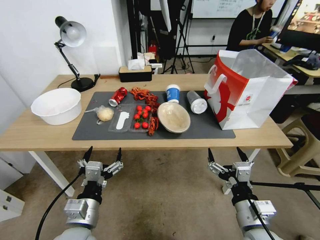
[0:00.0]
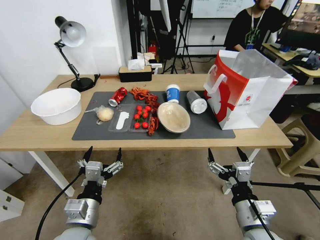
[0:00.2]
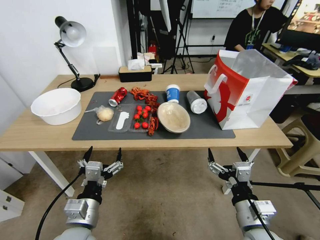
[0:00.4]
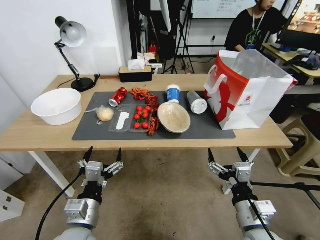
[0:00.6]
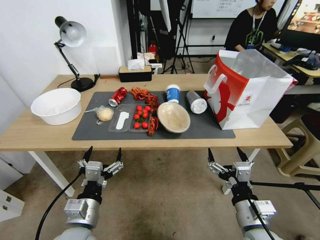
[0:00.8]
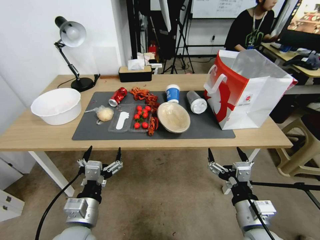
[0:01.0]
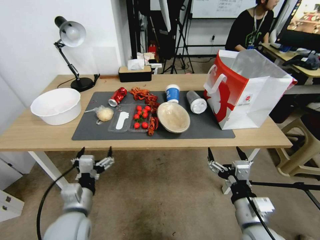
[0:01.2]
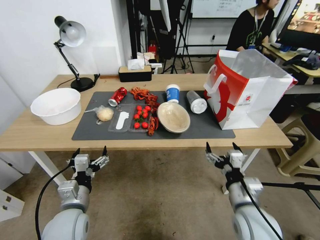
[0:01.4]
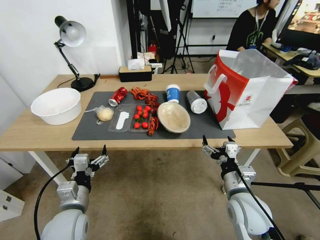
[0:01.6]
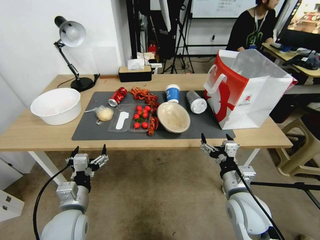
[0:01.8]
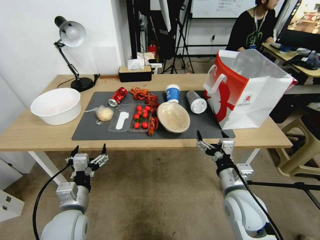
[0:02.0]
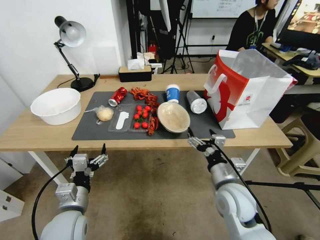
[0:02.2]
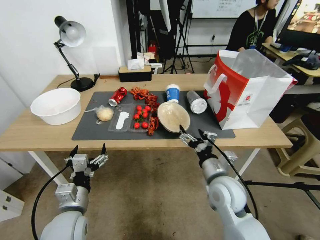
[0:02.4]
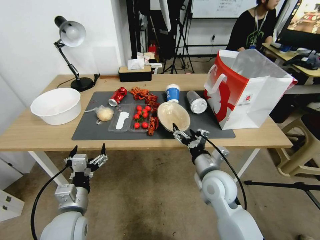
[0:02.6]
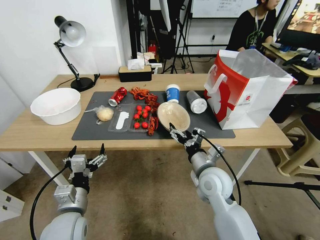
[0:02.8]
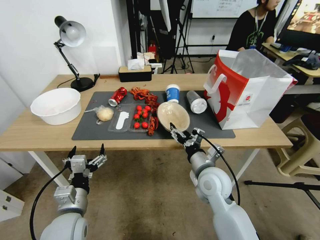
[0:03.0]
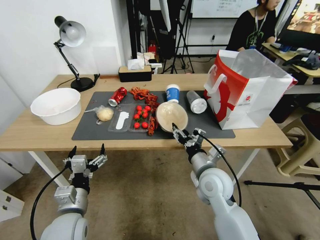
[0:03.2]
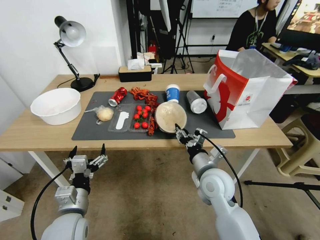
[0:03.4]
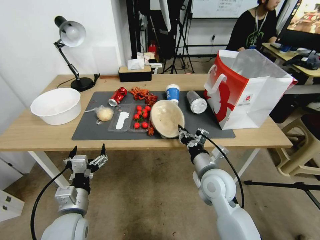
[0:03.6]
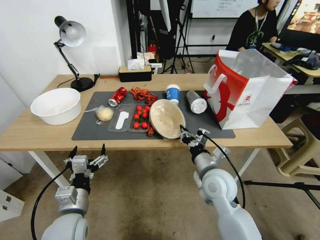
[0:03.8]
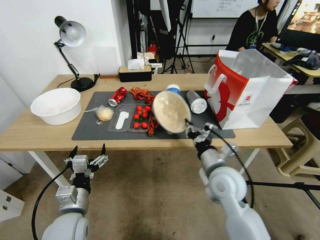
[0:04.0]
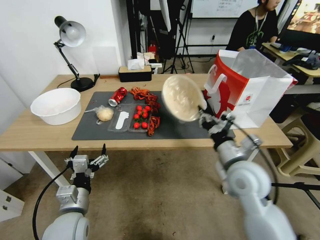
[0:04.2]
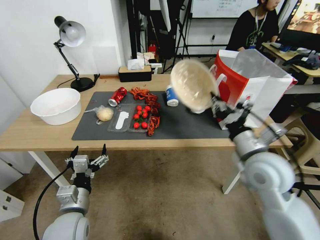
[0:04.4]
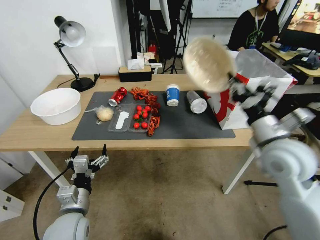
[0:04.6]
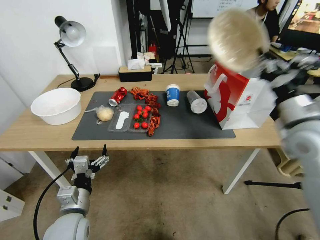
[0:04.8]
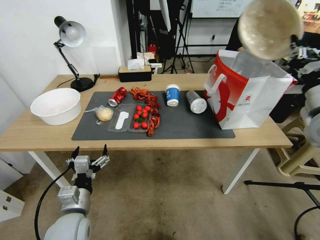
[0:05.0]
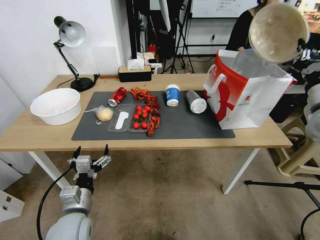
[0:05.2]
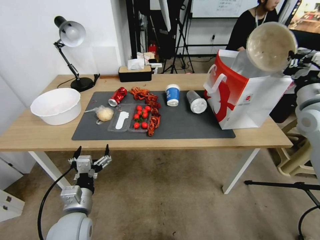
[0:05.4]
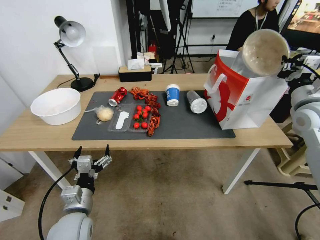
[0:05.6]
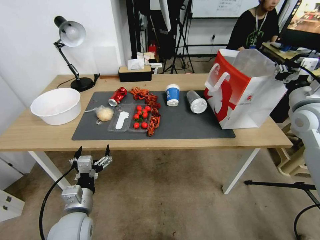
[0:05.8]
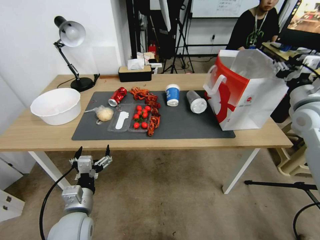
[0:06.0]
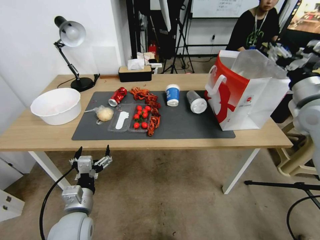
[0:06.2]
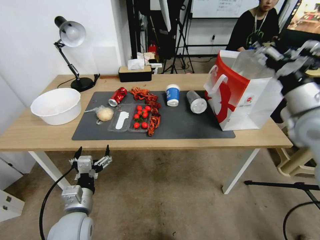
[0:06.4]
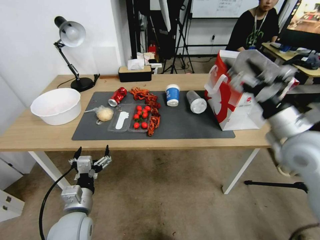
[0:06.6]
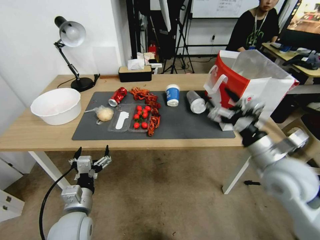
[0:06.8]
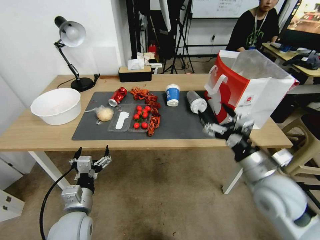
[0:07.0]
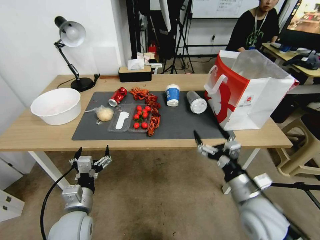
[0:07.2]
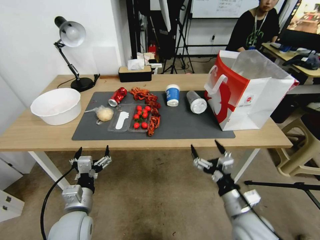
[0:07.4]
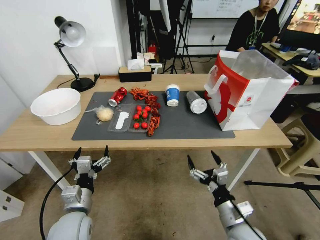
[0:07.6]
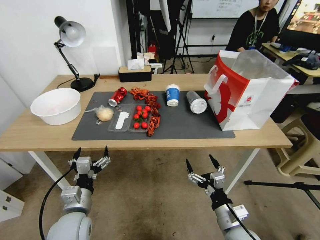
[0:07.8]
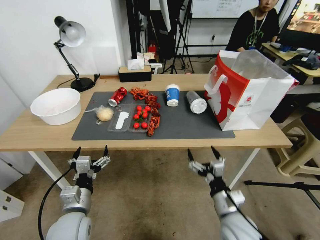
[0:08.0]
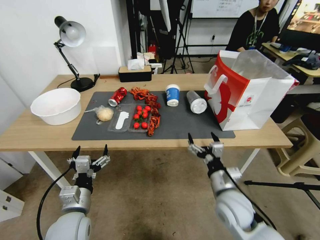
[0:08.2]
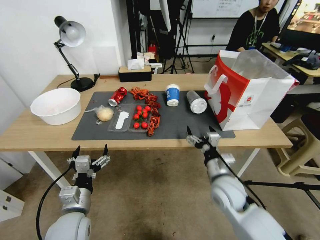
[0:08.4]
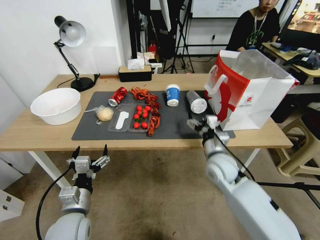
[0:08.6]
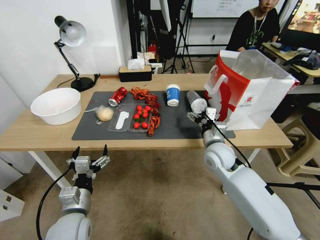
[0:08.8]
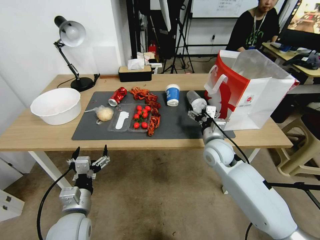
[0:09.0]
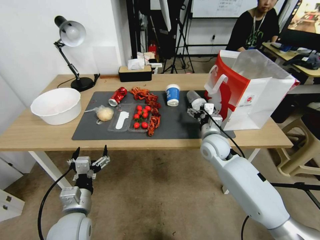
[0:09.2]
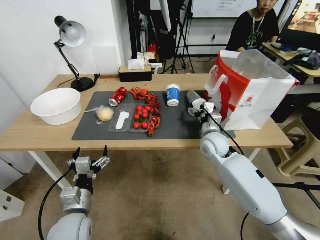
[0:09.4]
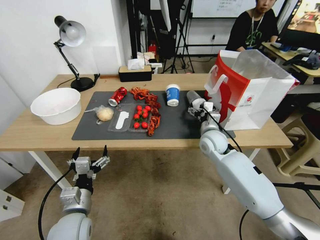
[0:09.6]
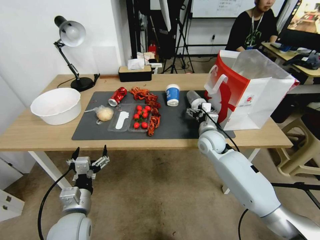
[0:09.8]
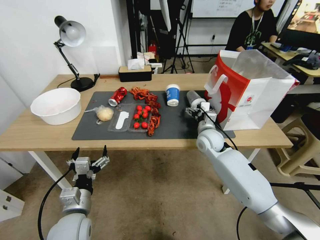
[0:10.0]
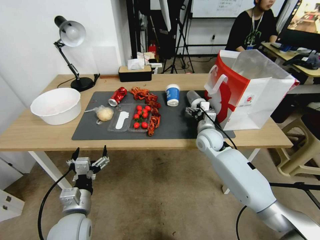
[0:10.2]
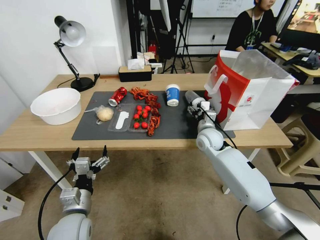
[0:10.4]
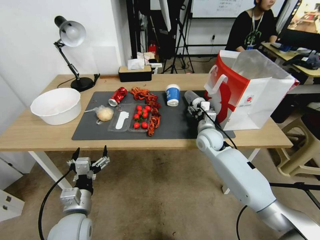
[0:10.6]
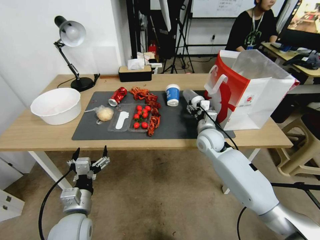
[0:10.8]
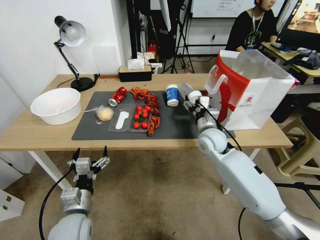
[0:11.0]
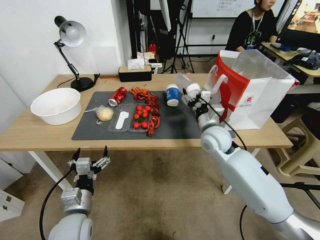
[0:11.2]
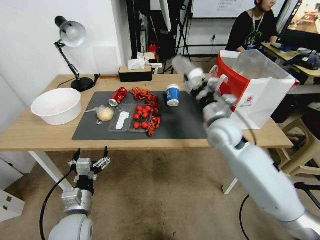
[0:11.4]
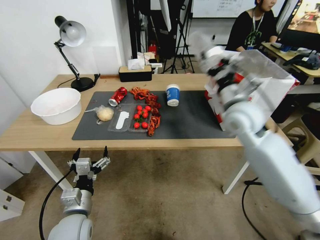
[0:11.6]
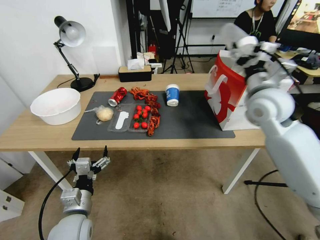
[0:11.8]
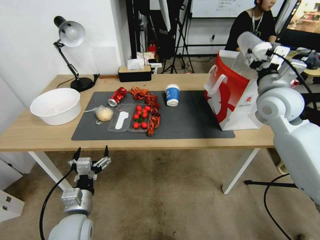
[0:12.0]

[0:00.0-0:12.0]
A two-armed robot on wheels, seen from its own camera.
0:01.6 to 0:03.0: The right gripper moves forward and to the left, about 10 cm.
0:03.0 to 0:04.4: The right gripper shifts roughly 15 cm upward and to the right, and closes up.
0:04.4 to 0:06.0: The right gripper shifts some 20 cm to the right, forward and upward, and opens.
0:06.0 to 0:07.6: The right gripper shifts about 35 cm downward, backward and to the left, and opens.
0:07.6 to 0:09.0: The right gripper goes about 20 cm forward.
0:09.0 to 0:10.4: The right gripper moves forward, some 5 cm.
0:10.4 to 0:12.0: The right gripper goes some 25 cm upward and to the right.

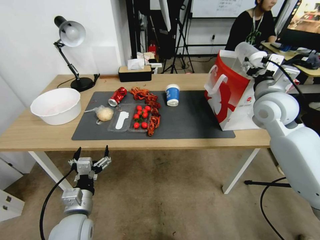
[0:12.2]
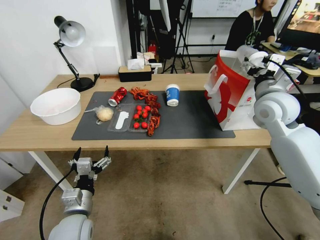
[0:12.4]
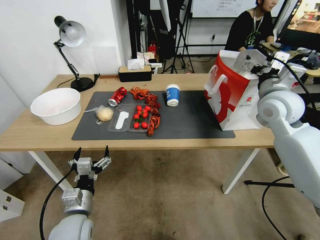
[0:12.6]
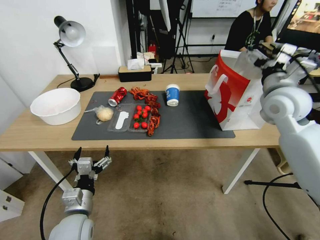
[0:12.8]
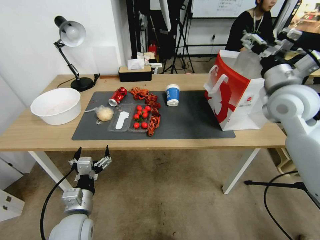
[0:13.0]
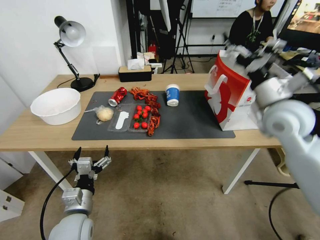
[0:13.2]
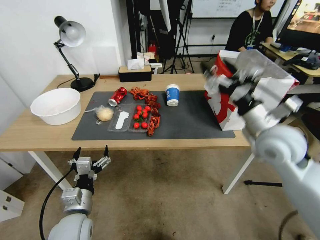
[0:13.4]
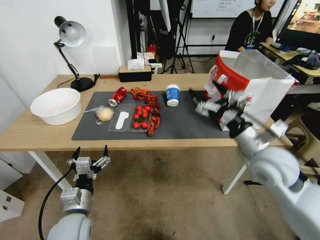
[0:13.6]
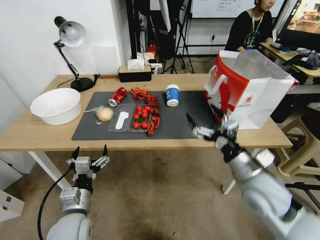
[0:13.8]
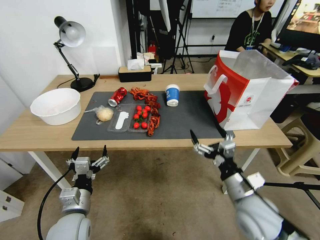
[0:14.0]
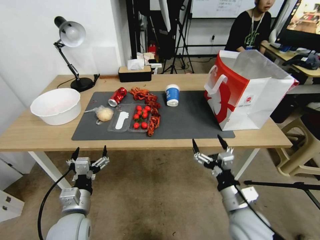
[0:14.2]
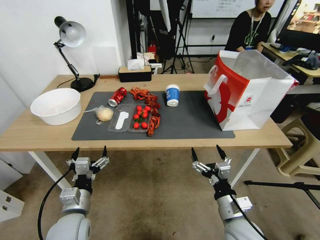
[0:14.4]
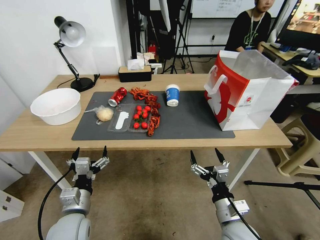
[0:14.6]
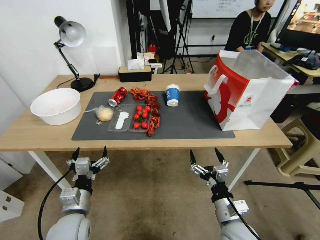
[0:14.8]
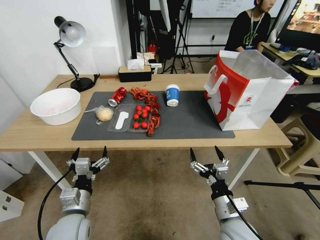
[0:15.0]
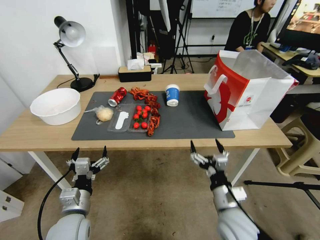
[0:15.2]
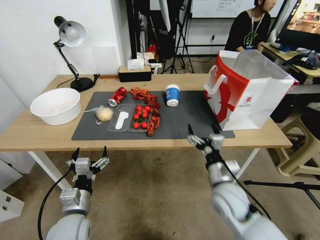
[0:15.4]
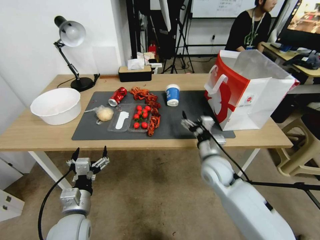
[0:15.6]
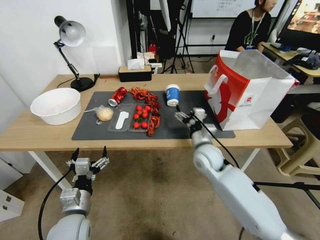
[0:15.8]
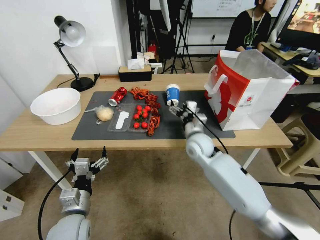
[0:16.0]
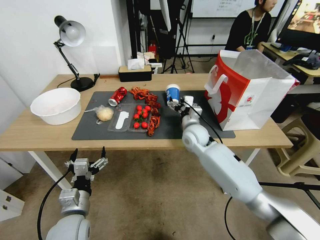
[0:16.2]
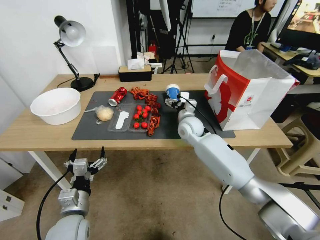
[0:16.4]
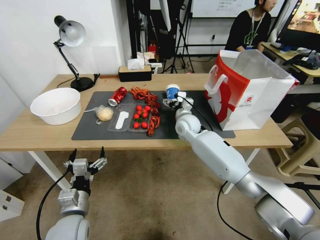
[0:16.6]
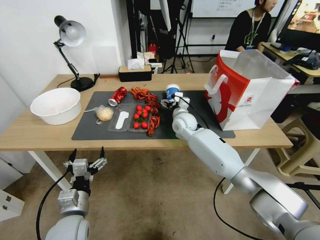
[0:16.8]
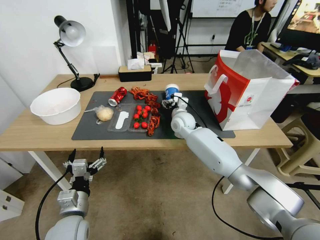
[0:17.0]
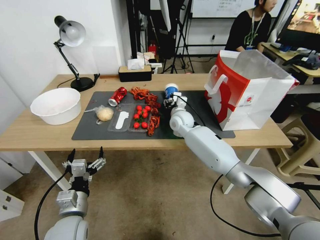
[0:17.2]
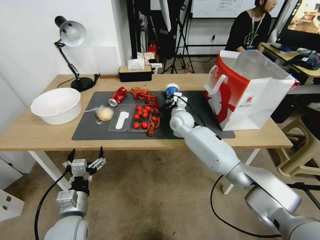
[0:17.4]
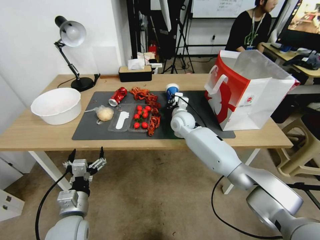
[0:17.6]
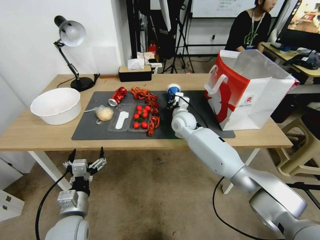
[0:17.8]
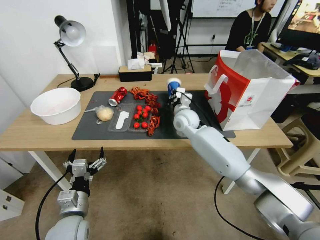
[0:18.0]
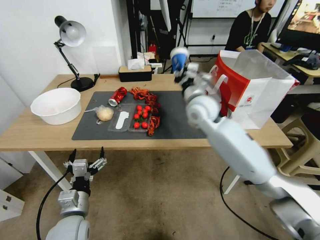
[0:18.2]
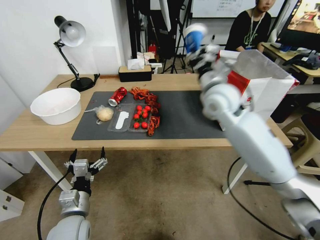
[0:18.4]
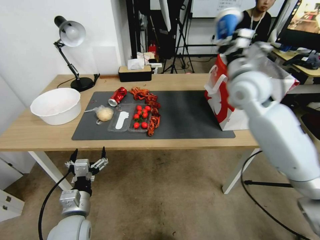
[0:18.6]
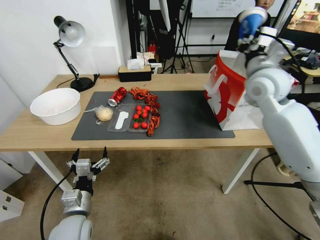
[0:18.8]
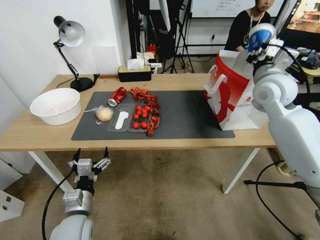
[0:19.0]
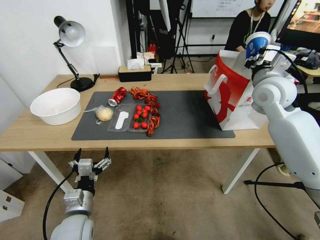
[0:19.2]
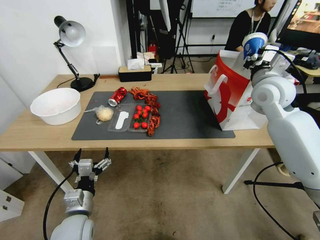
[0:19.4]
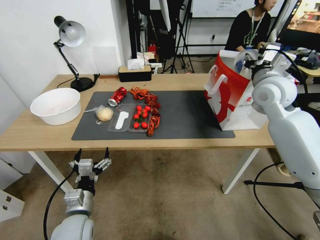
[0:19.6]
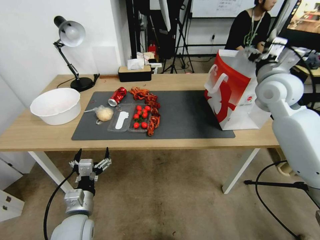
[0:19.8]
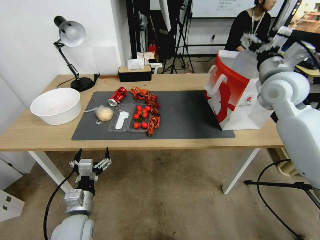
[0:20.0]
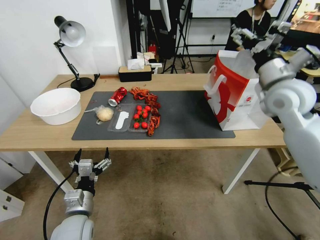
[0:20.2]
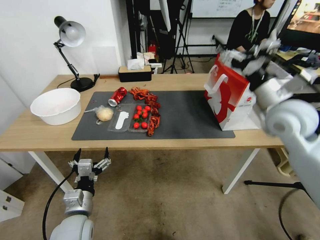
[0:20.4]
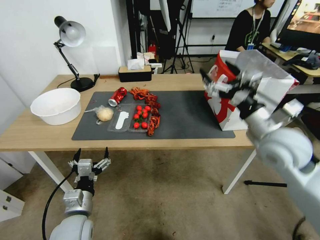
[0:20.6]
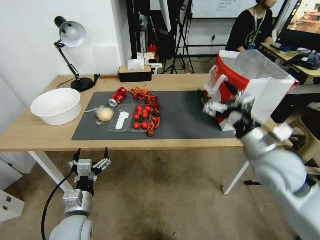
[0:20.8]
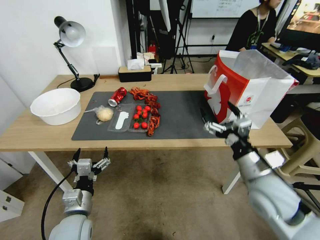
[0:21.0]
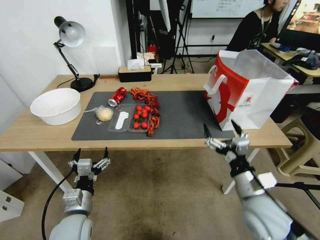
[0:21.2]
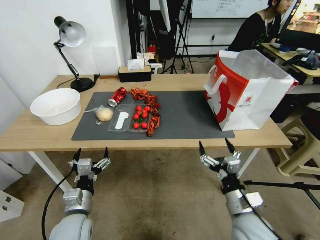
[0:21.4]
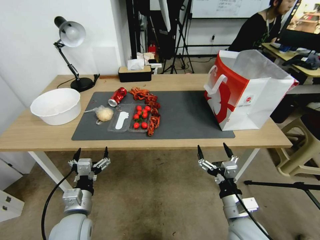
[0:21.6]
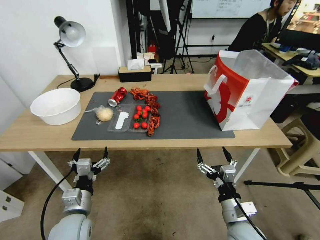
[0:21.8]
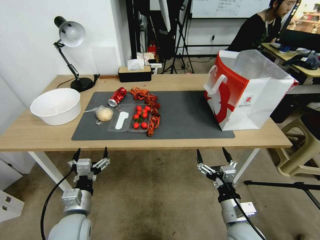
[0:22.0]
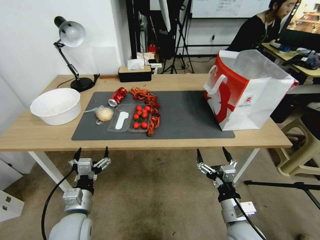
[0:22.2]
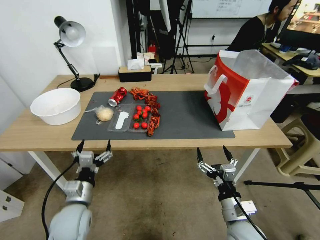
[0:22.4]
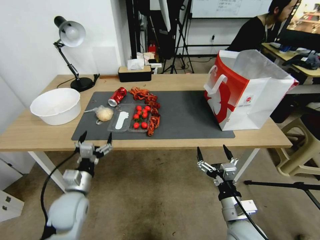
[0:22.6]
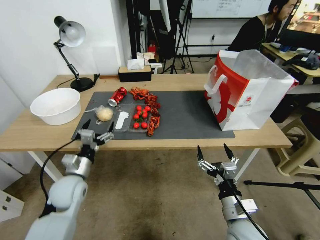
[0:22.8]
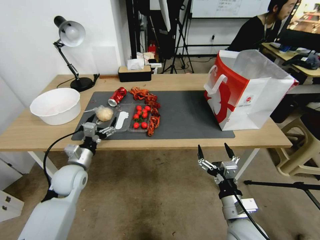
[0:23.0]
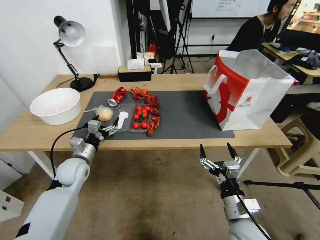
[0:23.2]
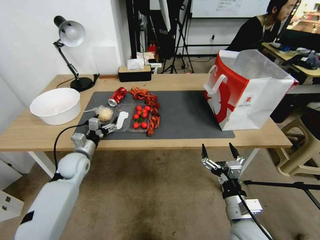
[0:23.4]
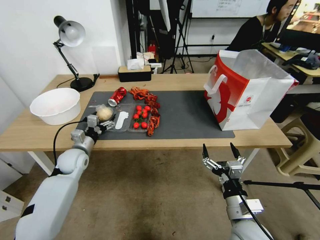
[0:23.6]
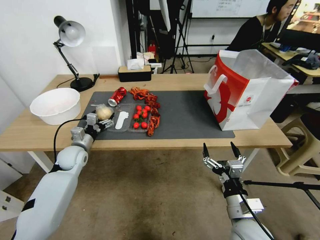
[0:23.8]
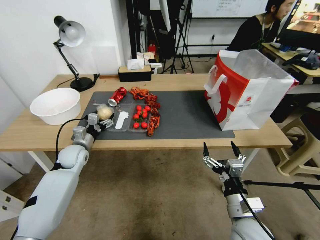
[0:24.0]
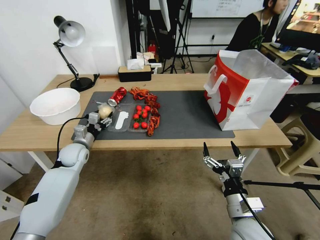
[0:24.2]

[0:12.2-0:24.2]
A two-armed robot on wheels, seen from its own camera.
0:12.2 to 0:13.8: The right gripper travels backward and downward by some 15 cm.
0:13.8 to 0:15.2: The right gripper heads downward, backward and to the left, covering approximately 20 cm.
0:15.2 to 0:16.6: The right gripper goes about 30 cm forward.
0:16.6 to 0:18.2: The right gripper travels upward by roughly 10 cm, and closes up.
0:18.2 to 0:19.8: The right gripper heads to the right and upward, covering roughly 20 cm, and opens up.
0:19.8 to 0:21.2: The right gripper goes some 30 cm backward and downward.
0:21.2 to 0:22.6: The right gripper is displaced downward and backward by approximately 10 cm. The left gripper shifts approximately 5 cm forward.
0:22.6 to 0:24.2: The left gripper goes some 20 cm forward.
